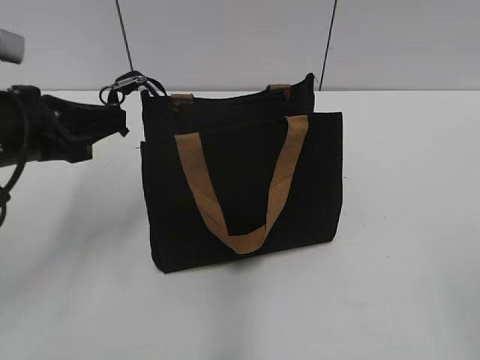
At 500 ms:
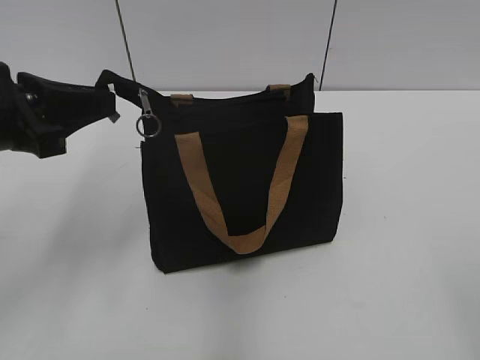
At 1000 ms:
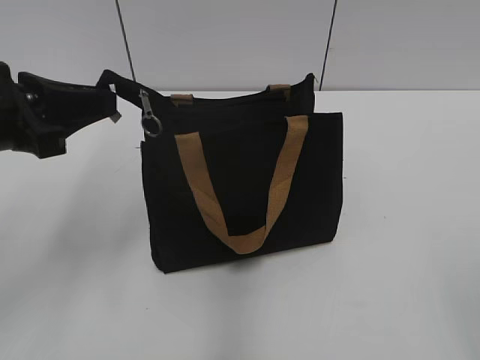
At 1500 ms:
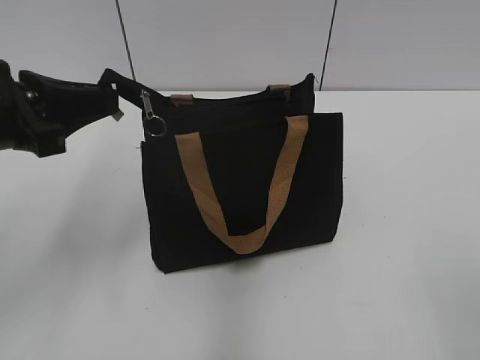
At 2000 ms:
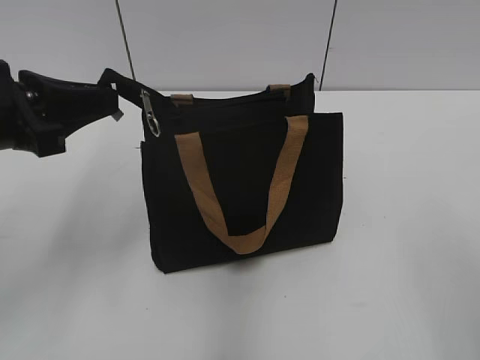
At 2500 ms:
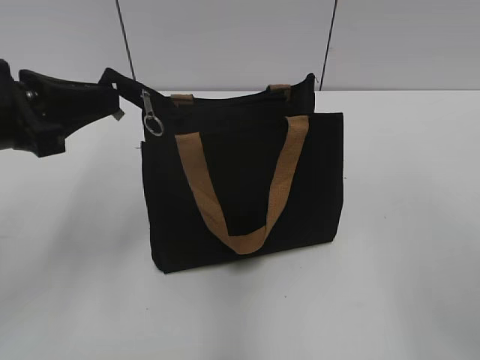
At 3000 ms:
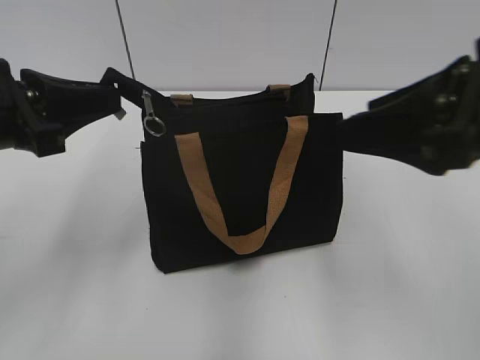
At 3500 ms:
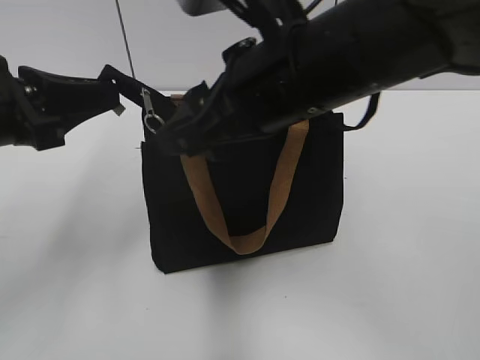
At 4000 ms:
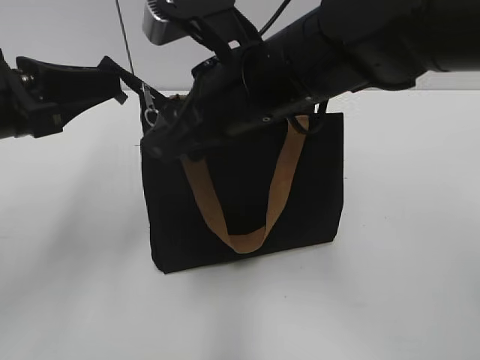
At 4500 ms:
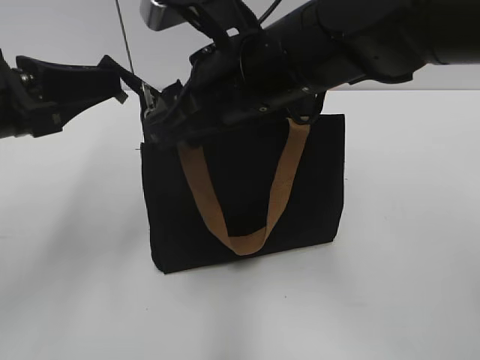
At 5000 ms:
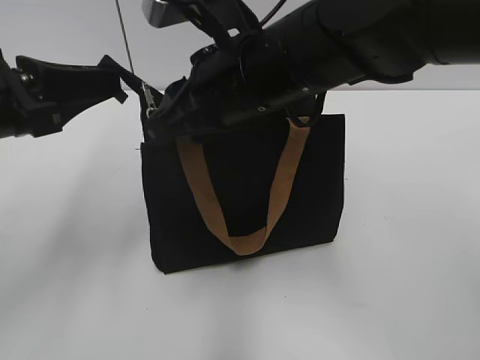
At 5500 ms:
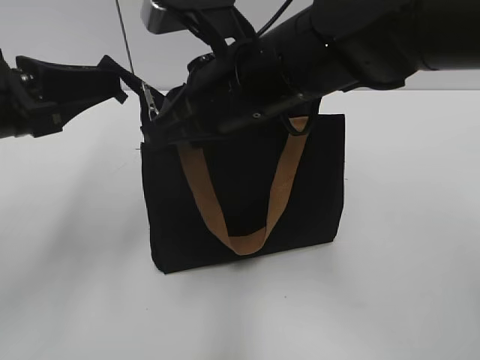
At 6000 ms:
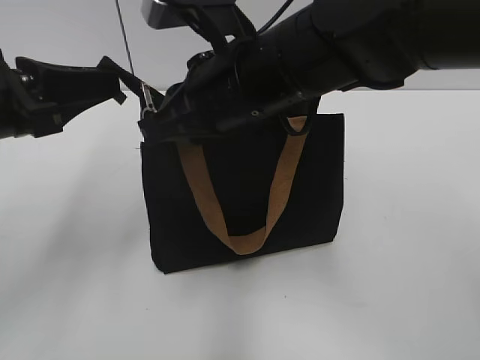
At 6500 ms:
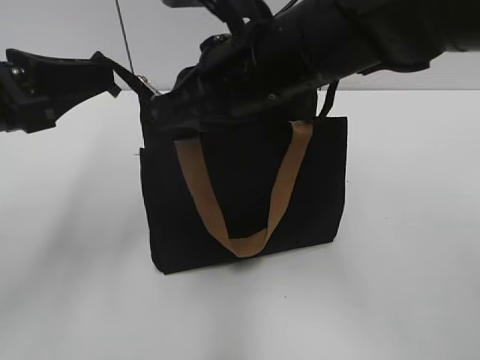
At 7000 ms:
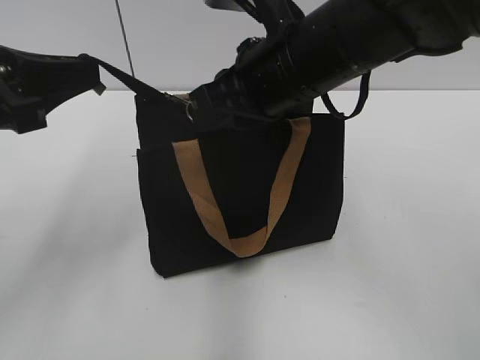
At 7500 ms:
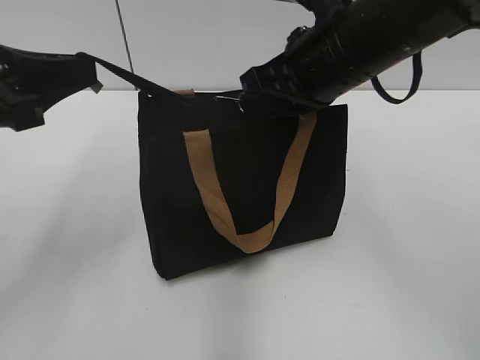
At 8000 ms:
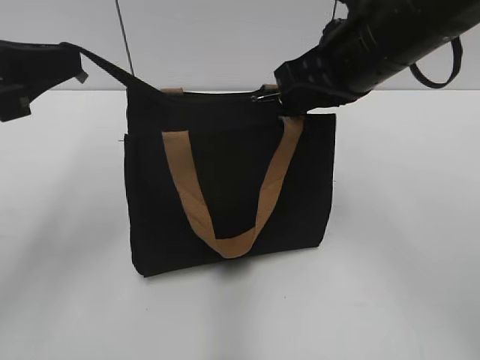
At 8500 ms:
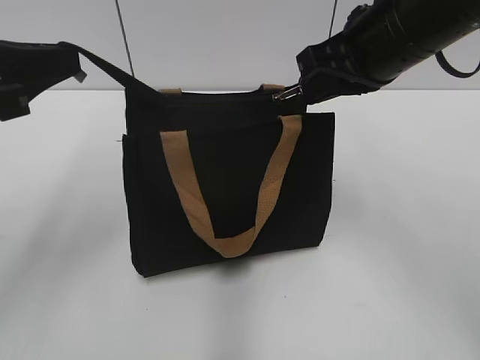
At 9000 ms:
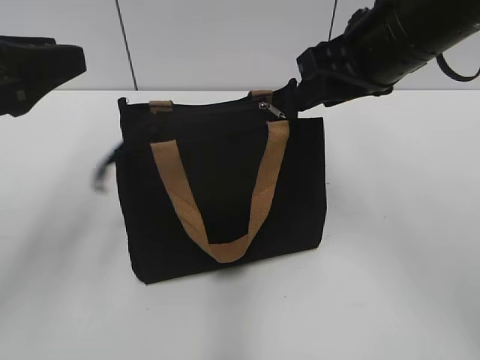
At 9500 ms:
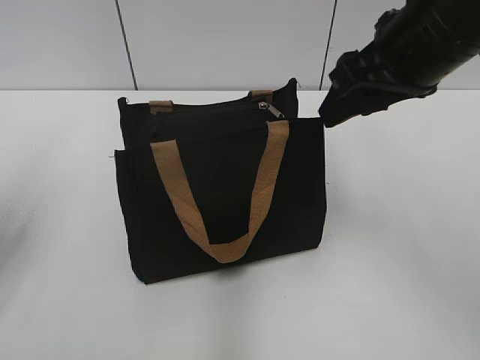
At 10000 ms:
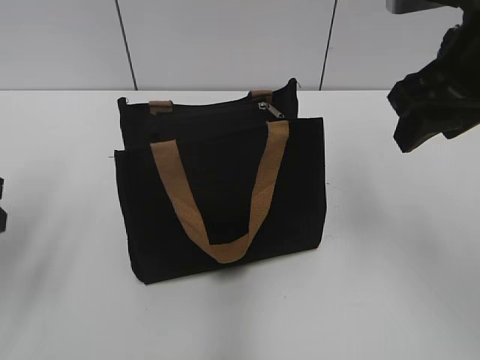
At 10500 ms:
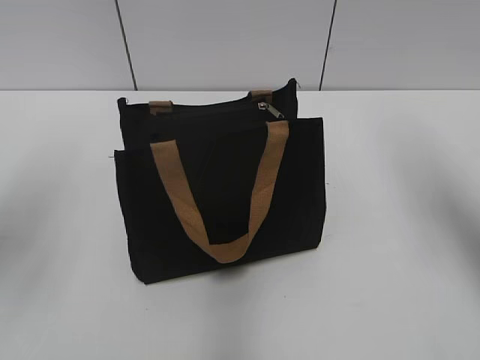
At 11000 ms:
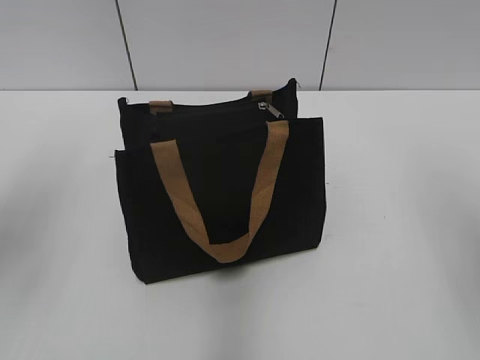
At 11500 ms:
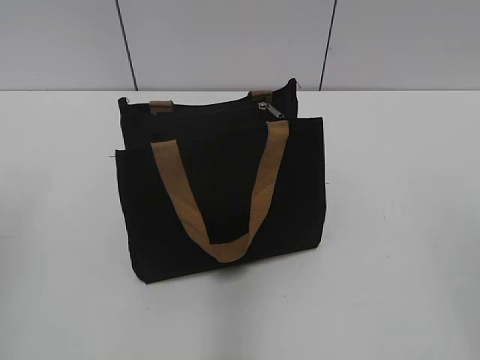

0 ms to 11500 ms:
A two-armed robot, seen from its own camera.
Step, 0 ms to 8500 ms: Zip up the bag with your right hand.
0 ms to 2000 ms: The left gripper goes roughly 5 cm upward.
2000 ms to 4000 ms: The right gripper goes approximately 35 cm forward and to the left.
4000 ms to 6000 ms: The right gripper closes.
6000 ms to 7500 ms: The right gripper moves to the right, about 5 cm.
7500 ms to 9500 ms: The right gripper goes about 5 cm to the right, and opens up, while the left gripper goes roughly 5 cm to the left, and opens its fingers.
9500 ms to 11500 ms: The right gripper is displaced backward and to the right by approximately 25 cm. The left gripper moves backward and upward, approximately 10 cm.

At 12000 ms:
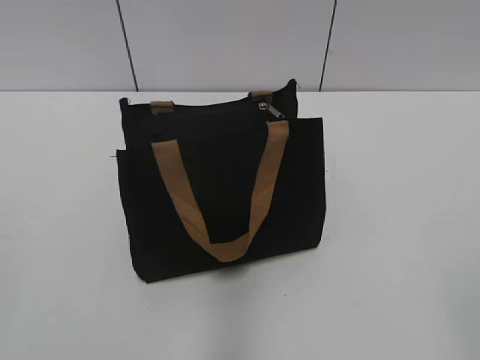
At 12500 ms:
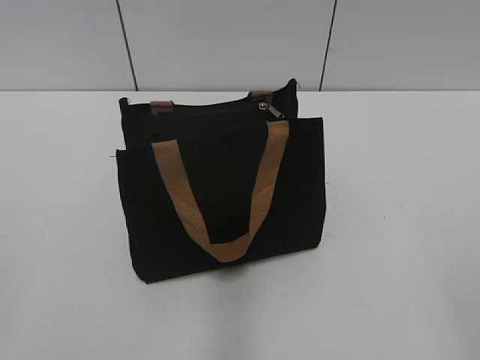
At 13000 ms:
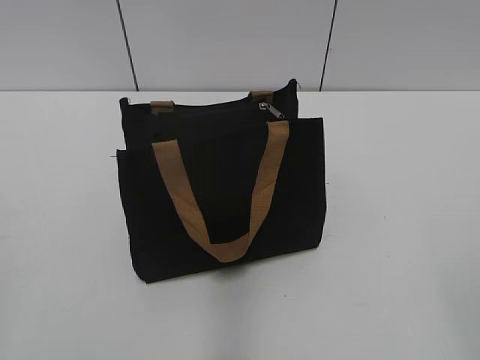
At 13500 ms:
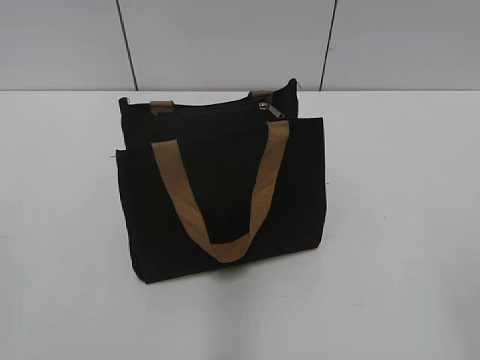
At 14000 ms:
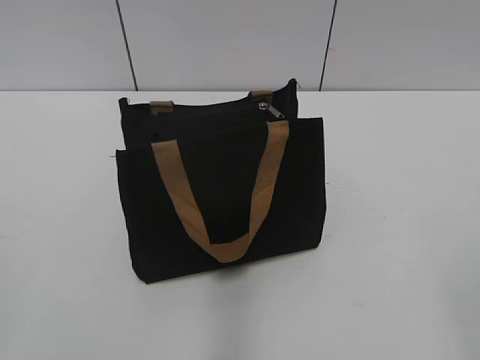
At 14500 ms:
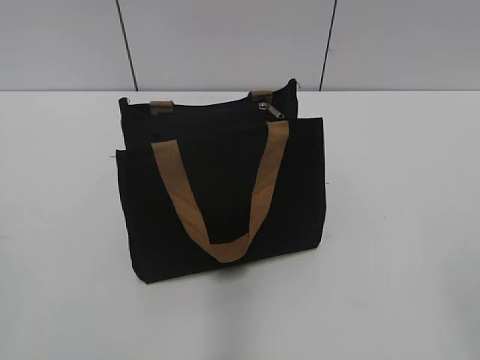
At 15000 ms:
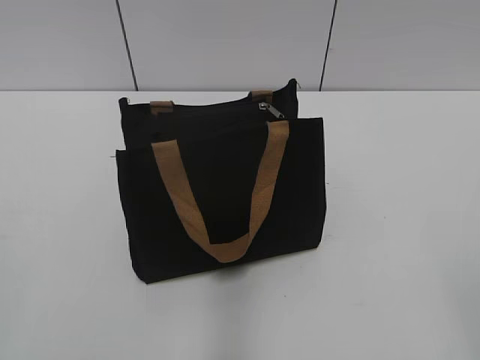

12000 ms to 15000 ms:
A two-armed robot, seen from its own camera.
13500 ms to 15000 ms: The two grippers keep their place.

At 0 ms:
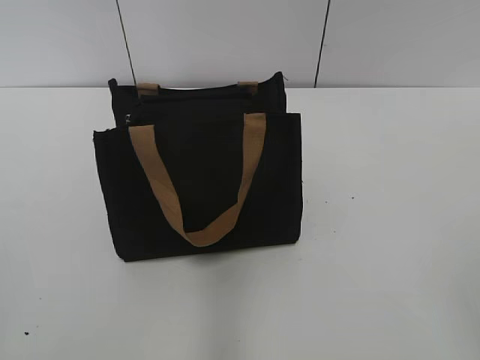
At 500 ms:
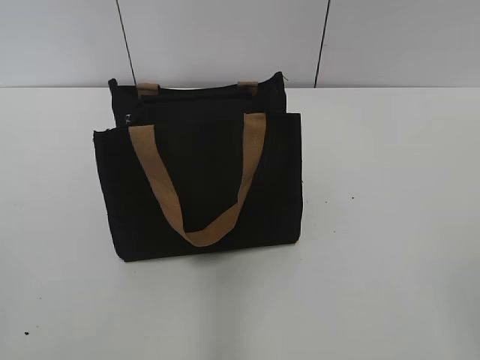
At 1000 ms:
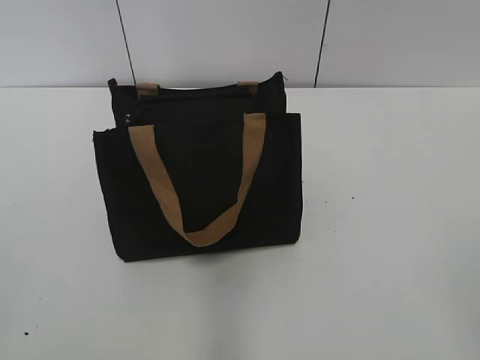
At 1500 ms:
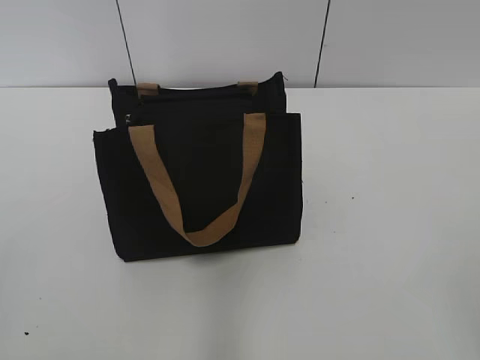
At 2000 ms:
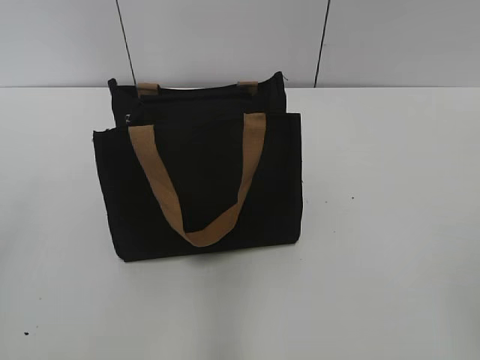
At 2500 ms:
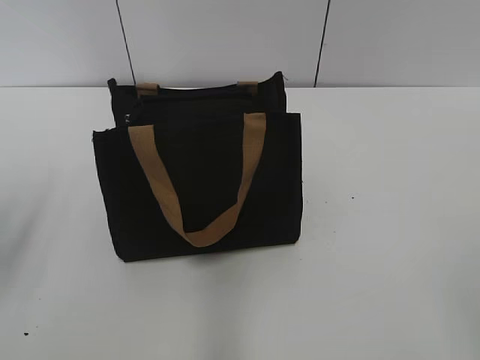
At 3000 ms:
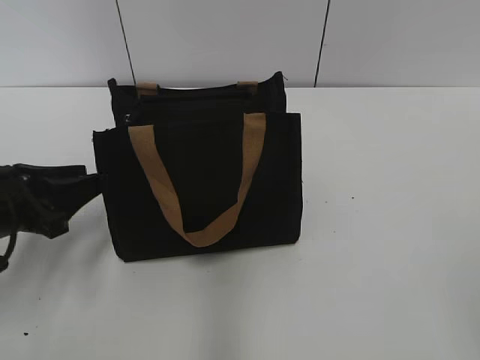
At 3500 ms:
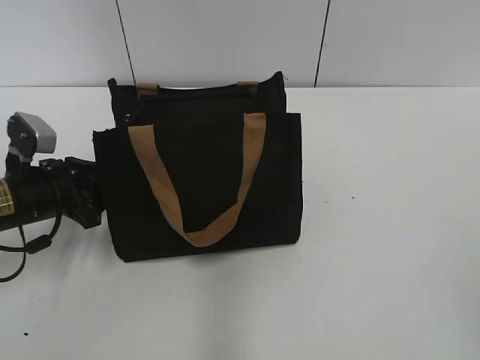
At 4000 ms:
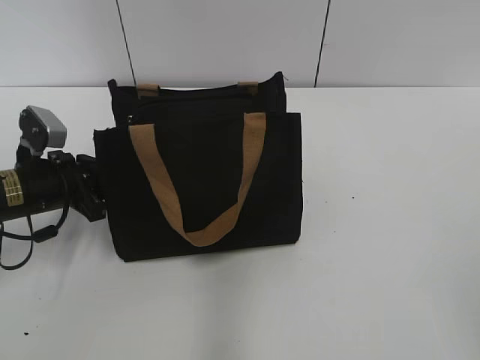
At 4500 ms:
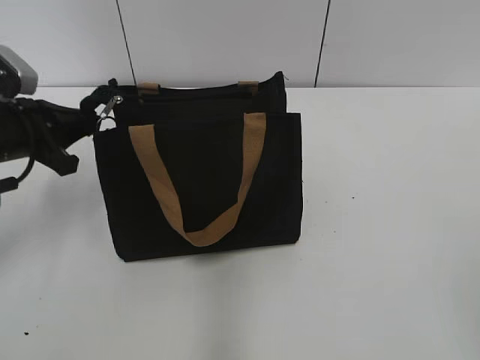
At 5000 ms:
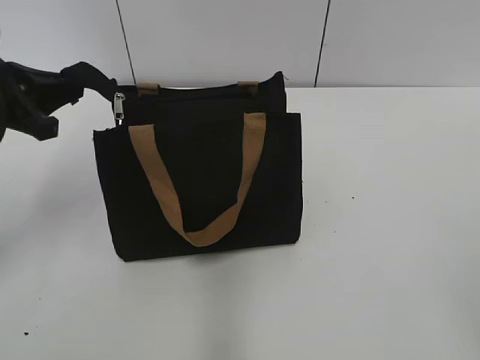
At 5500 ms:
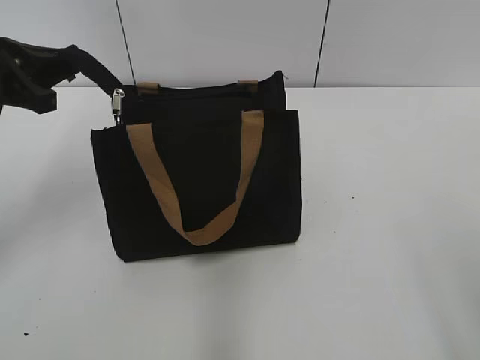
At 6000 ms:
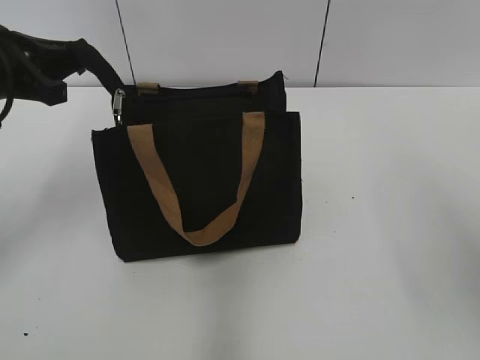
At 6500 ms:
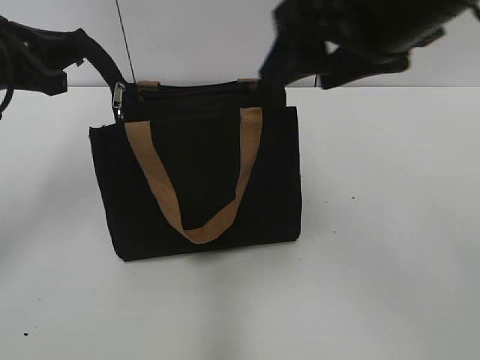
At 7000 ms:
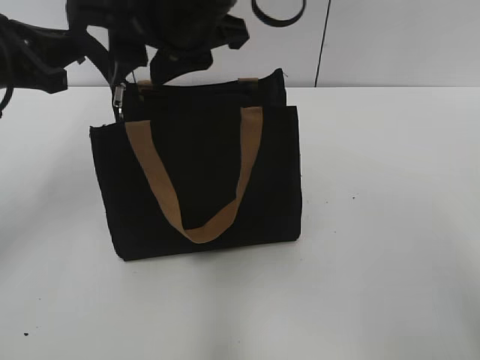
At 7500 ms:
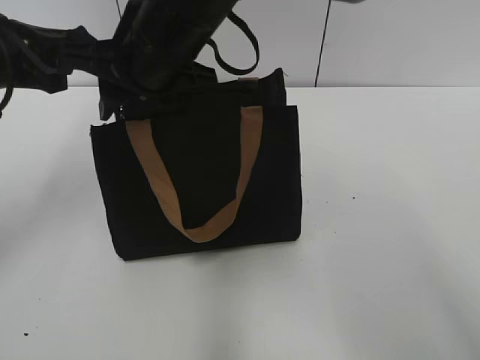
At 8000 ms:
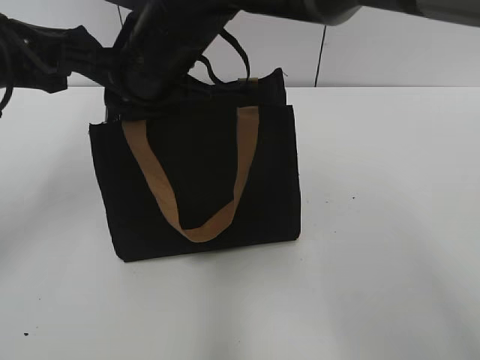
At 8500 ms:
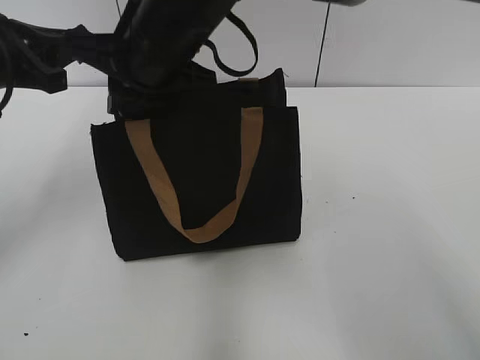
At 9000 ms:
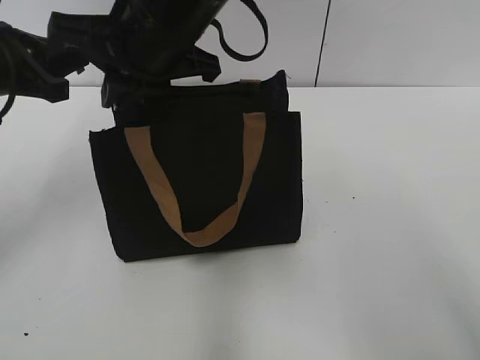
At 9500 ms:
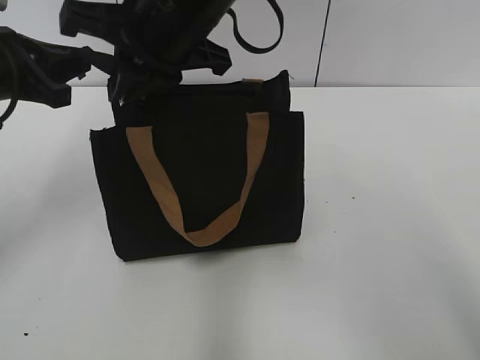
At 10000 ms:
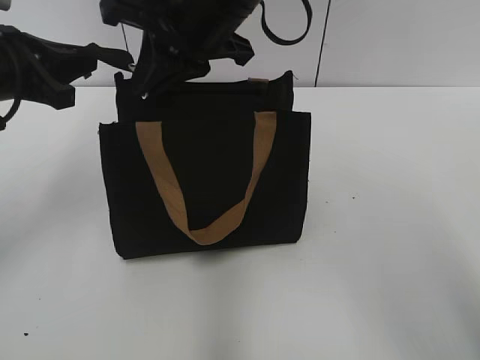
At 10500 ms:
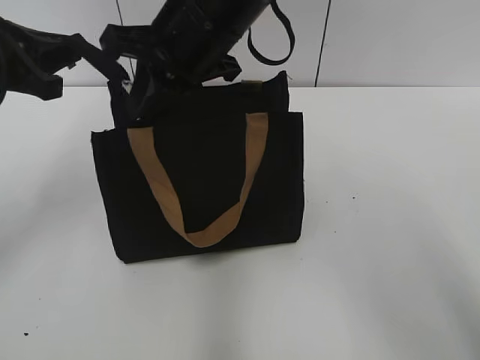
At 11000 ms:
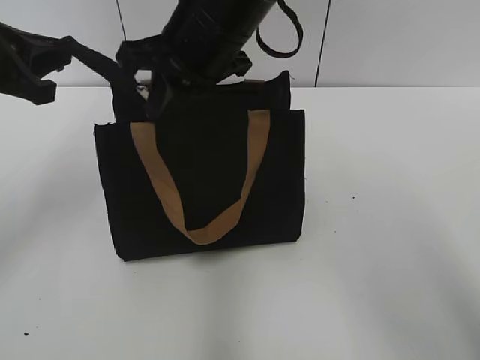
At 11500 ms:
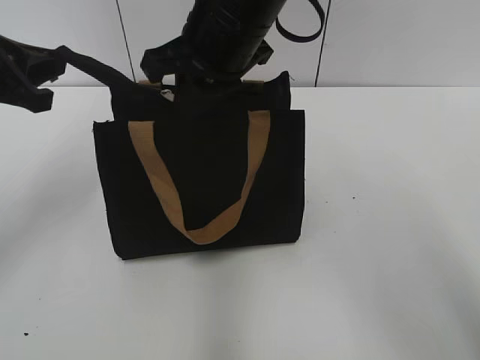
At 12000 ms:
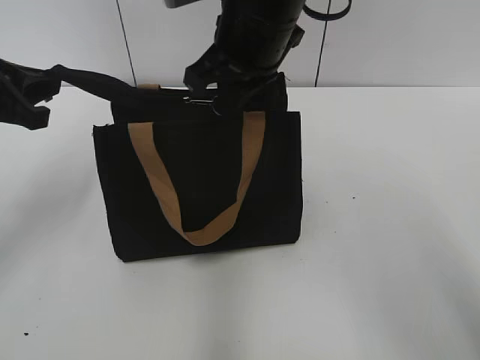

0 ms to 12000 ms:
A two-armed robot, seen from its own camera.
2000 ms to 4000 ms: The left gripper travels forward and downward by roughly 35 cm, and closes.
4000 ms to 6000 ms: The left gripper goes roughly 15 cm upward, while the right gripper heads forward and upward, covering about 15 cm.
6000 ms to 8000 ms: The right gripper travels to the left and forward by roughly 35 cm, and closes its fingers.
8000 ms to 10000 ms: The right gripper moves to the right and upward, approximately 10 cm.
